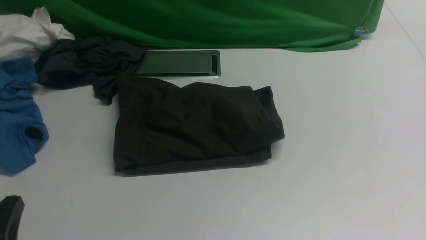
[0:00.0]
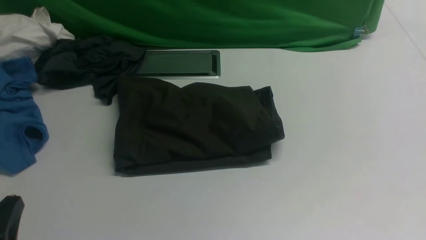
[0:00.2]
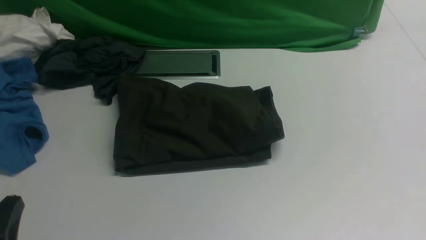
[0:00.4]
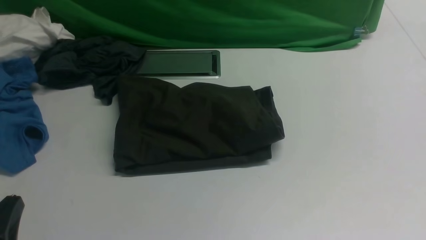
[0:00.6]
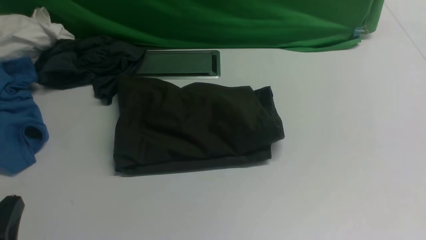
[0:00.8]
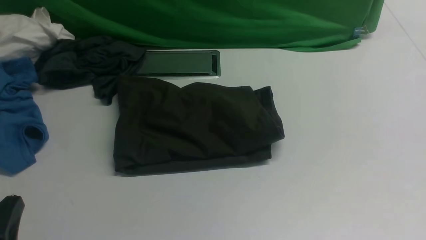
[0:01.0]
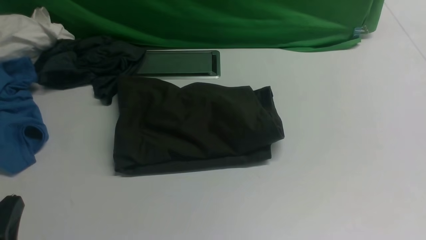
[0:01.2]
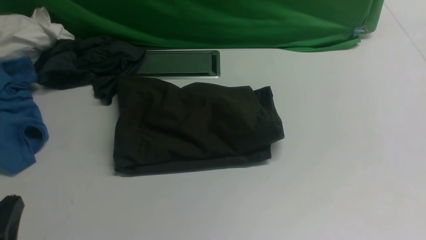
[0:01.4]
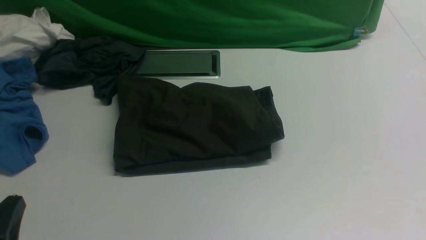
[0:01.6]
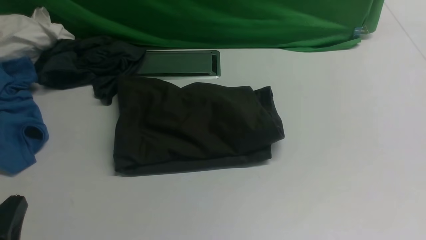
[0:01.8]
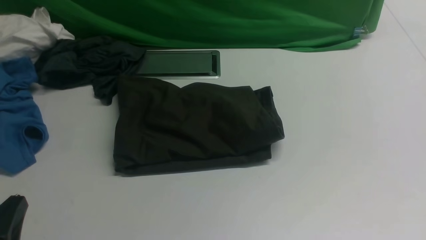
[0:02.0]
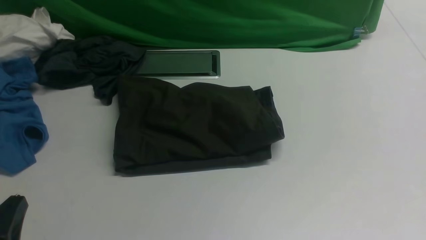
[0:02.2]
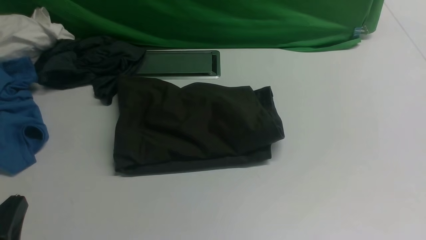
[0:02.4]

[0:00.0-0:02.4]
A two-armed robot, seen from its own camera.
0:01.2 to 0:02.4: The two grippers keep their place.

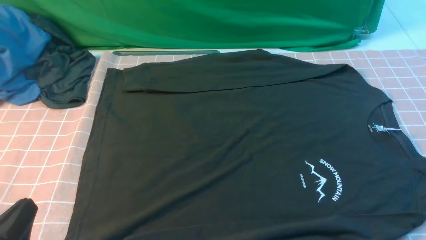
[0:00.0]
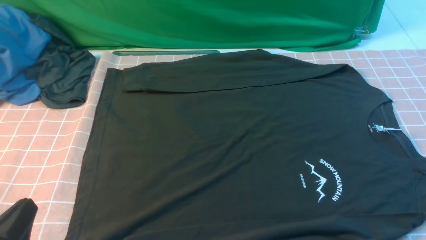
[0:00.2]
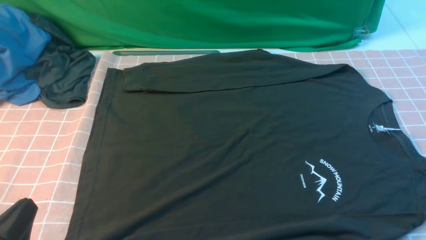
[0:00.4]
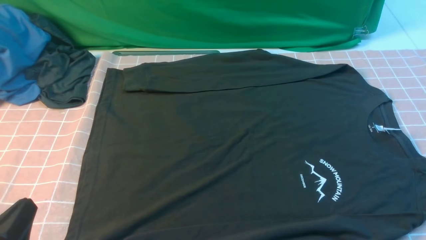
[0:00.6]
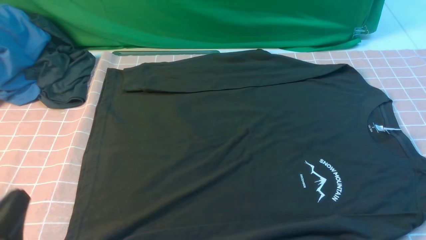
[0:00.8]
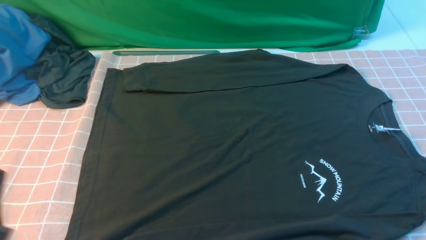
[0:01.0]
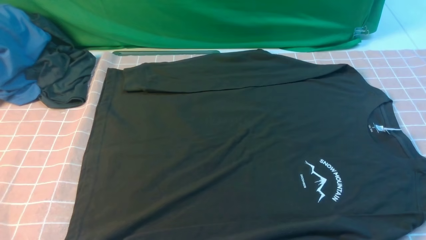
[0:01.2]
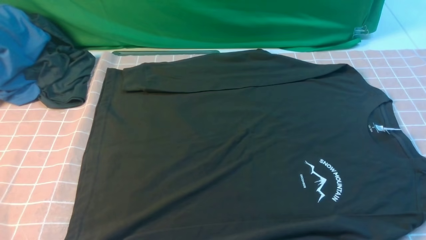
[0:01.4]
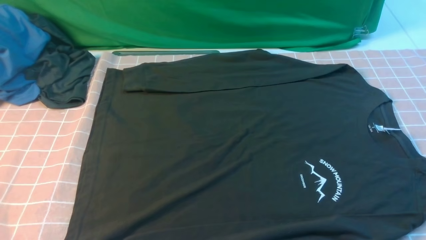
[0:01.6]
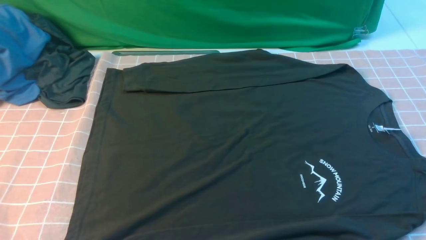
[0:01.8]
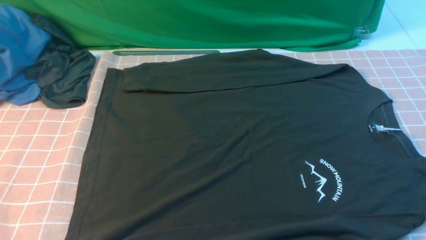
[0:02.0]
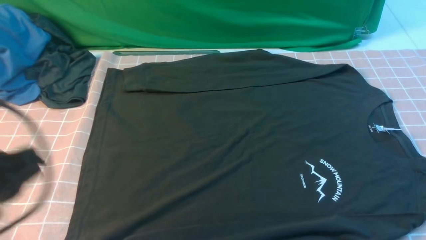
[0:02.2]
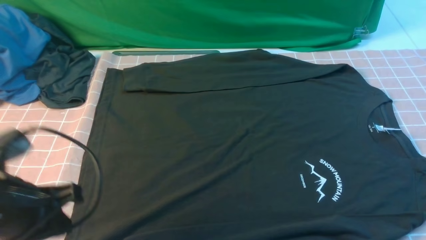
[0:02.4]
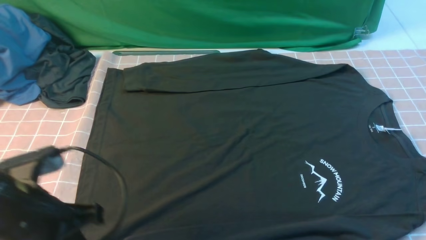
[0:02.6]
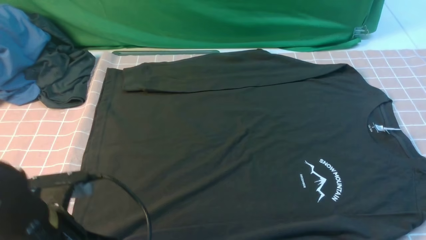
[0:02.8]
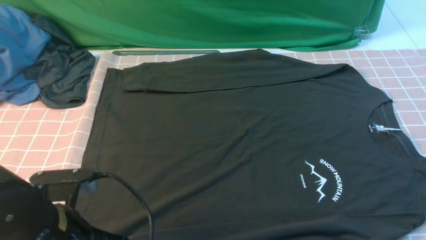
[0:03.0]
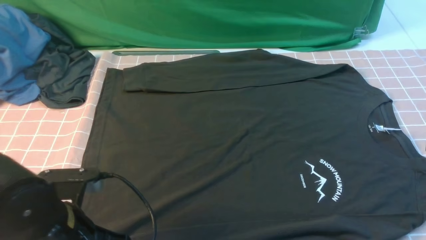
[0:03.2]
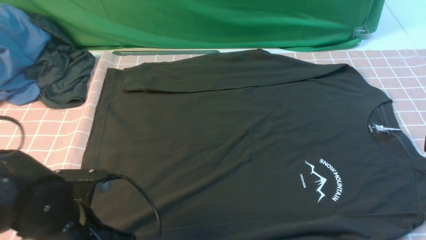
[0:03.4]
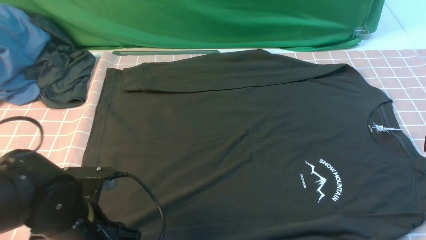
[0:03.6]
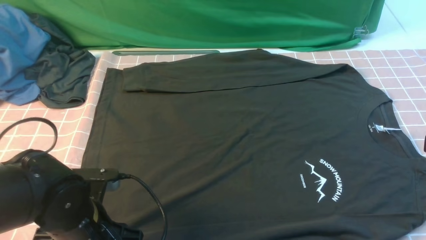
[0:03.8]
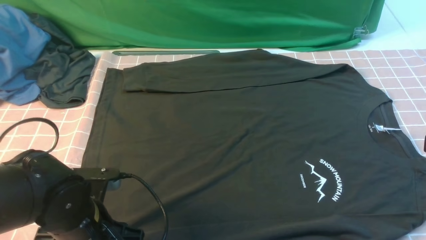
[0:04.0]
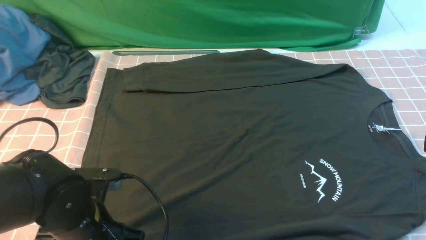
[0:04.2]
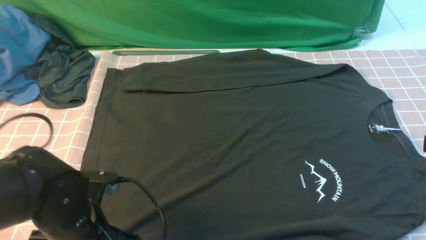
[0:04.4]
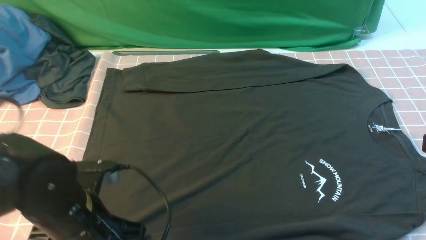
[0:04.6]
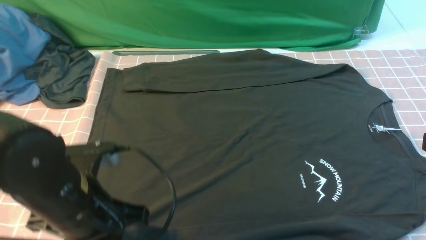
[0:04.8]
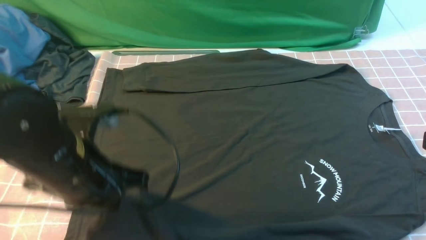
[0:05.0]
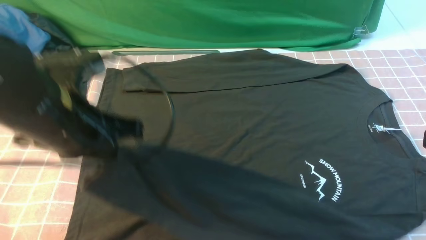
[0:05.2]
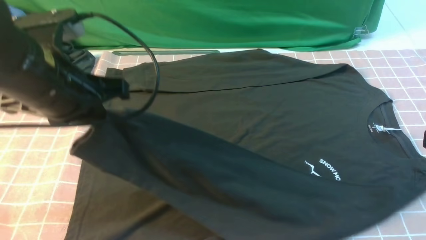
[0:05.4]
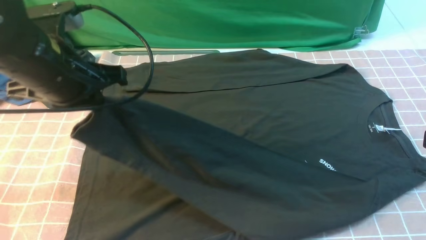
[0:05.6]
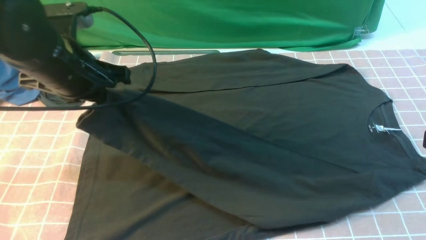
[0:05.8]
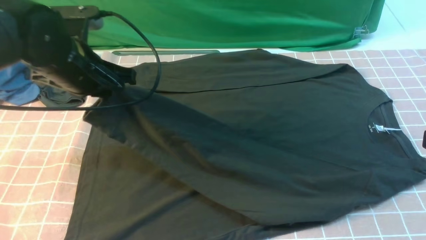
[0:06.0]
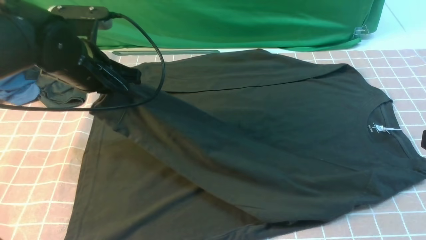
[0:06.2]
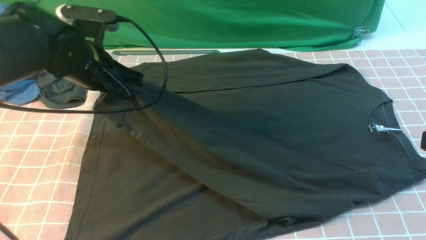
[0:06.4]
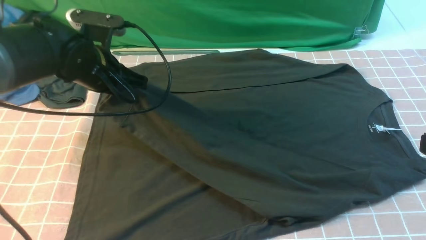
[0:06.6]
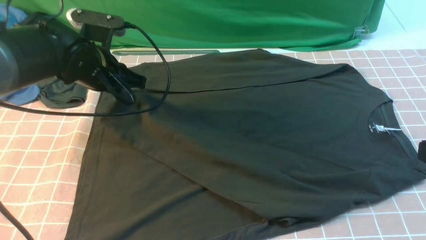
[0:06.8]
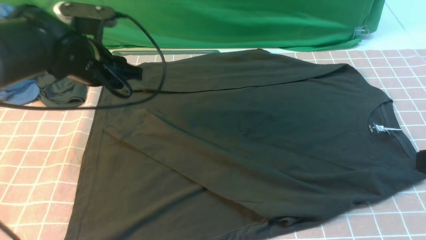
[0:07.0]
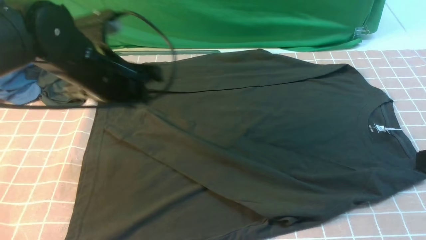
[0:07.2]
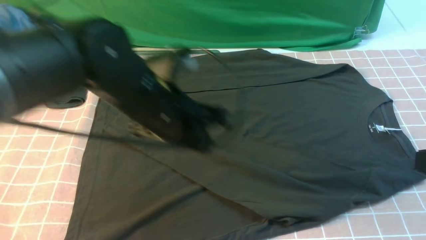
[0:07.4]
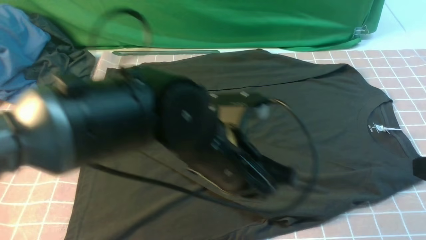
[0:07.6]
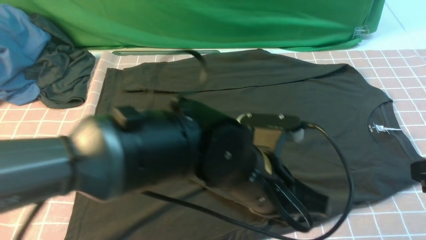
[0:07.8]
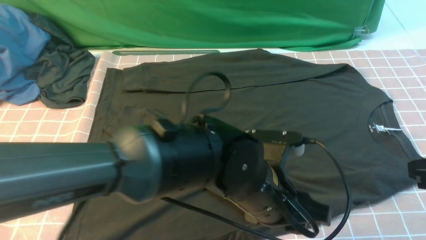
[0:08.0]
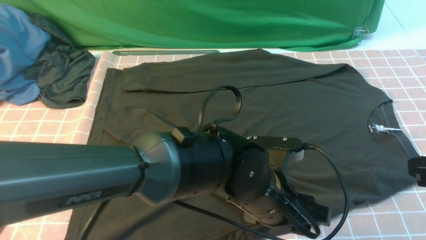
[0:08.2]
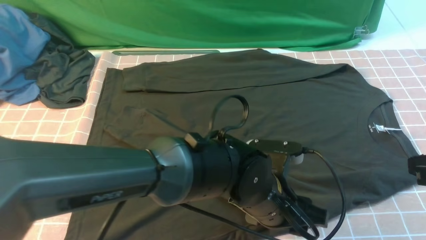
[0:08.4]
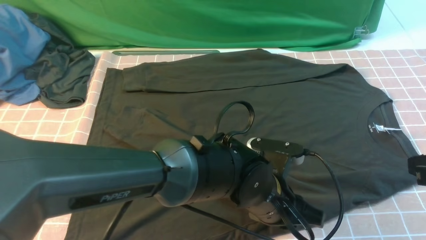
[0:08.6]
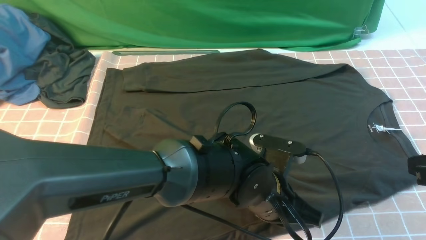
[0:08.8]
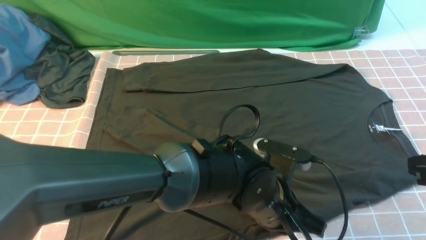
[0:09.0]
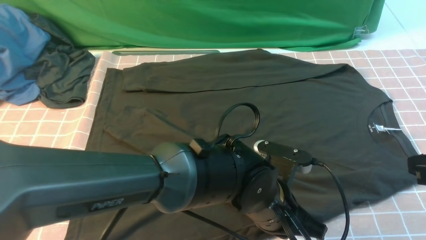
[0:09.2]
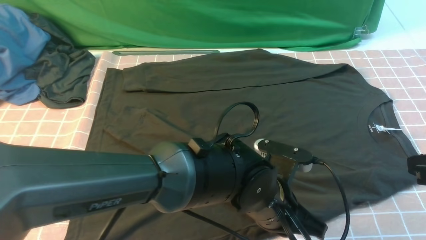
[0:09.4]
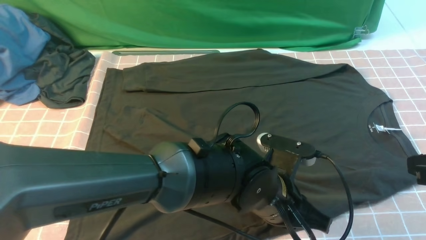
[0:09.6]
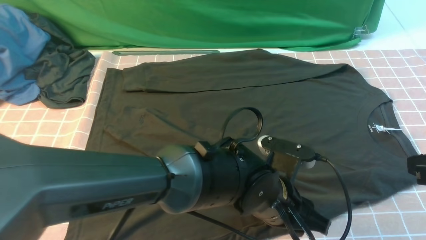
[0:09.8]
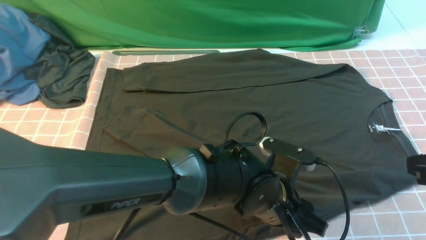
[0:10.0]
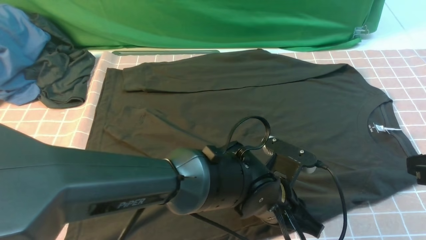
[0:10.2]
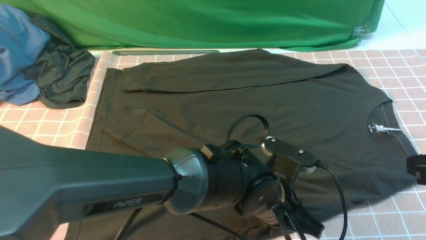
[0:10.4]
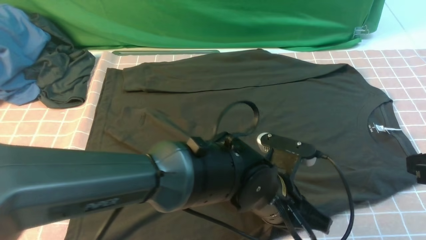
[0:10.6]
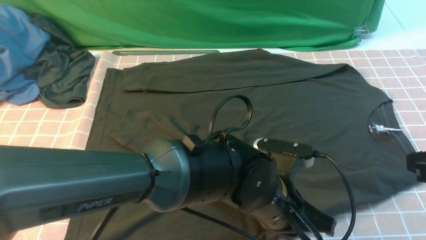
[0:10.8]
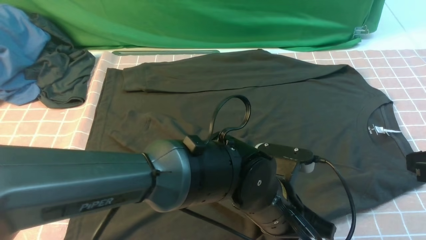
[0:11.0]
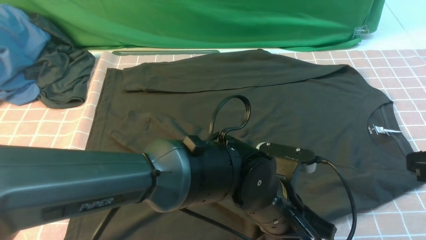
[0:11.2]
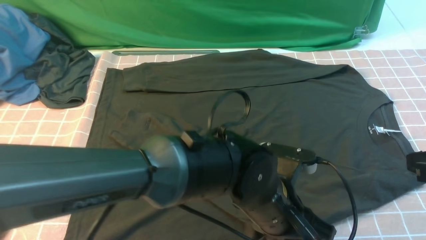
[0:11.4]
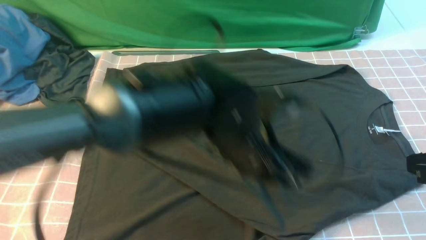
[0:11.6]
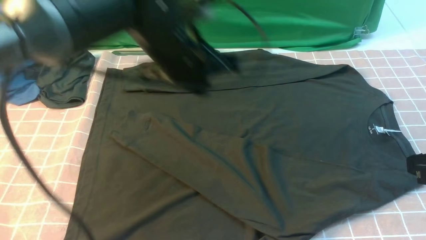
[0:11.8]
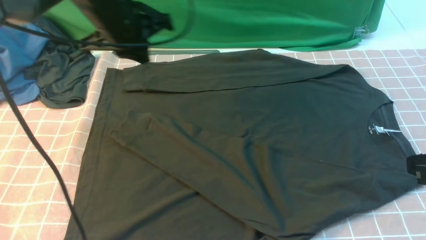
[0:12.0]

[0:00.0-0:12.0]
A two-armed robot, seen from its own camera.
Step, 0:00.0 to 0:04.8: use the left arm to clamp the cuff closest to it.
Step, 0:05.0 to 0:06.8: use the left arm to drag and place the cuff at the centered position on the left edge of the fabric.
0:00.0 to 0:01.6: The left gripper is displaced upward by roughly 10 cm.
0:01.6 to 0:03.0: The left gripper is displaced forward, to the right and downward by approximately 15 cm.
0:03.0 to 0:04.4: The left gripper opens, then closes once more.
0:04.4 to 0:06.0: The left gripper is displaced forward and upward by approximately 20 cm.
0:06.0 to 0:07.6: The left gripper travels to the right and backward by roughly 20 cm, and opens, then closes again.
0:07.6 to 0:09.0: The left gripper is displaced downward and to the right by about 10 cm, and opens and closes again.
0:09.0 to 0:10.4: The left gripper opens, then closes once more.
0:10.4 to 0:12.0: The left gripper heads to the left, forward and upward, covering roughly 35 cm.

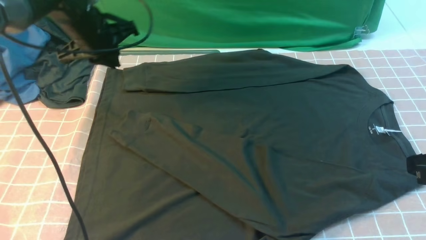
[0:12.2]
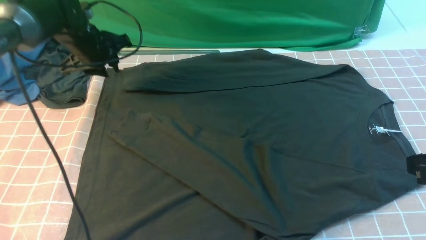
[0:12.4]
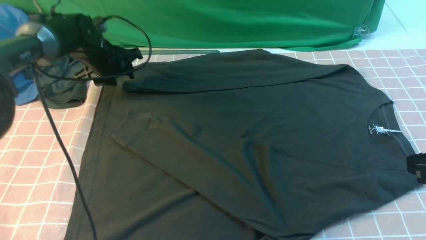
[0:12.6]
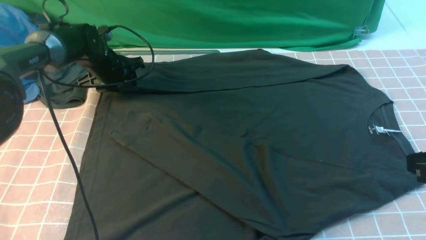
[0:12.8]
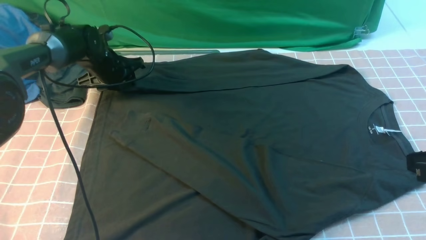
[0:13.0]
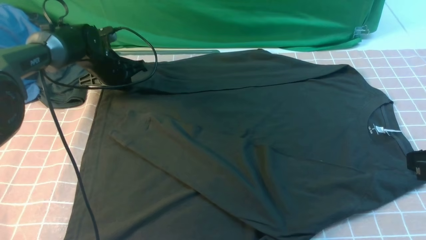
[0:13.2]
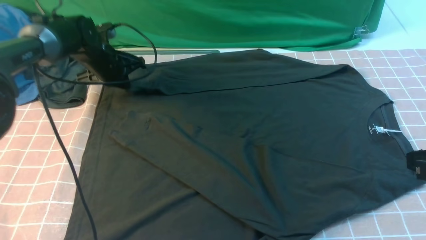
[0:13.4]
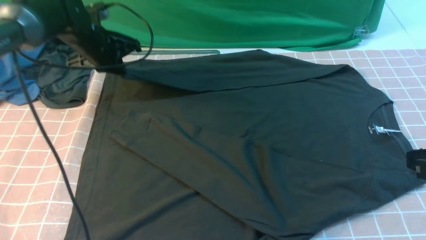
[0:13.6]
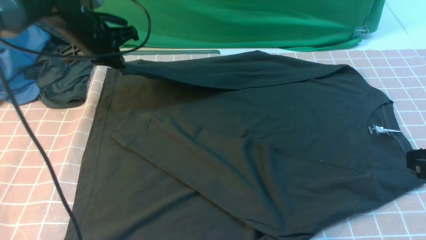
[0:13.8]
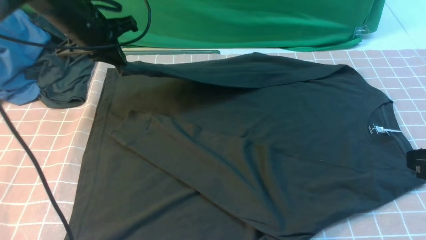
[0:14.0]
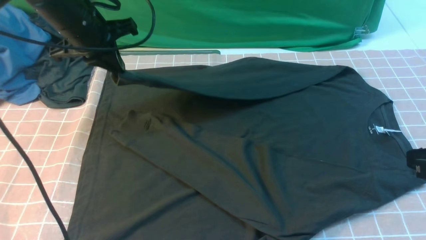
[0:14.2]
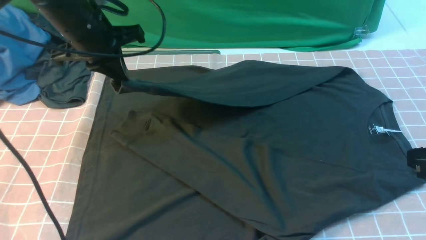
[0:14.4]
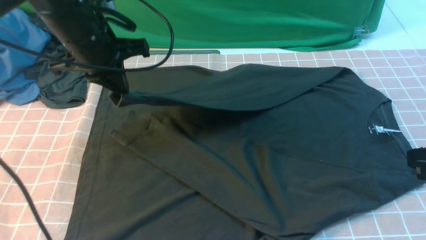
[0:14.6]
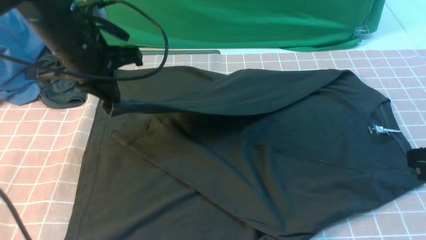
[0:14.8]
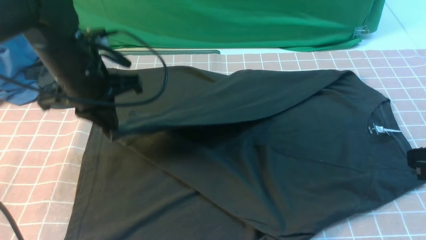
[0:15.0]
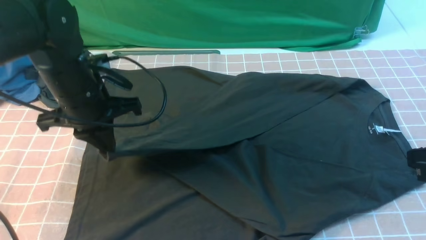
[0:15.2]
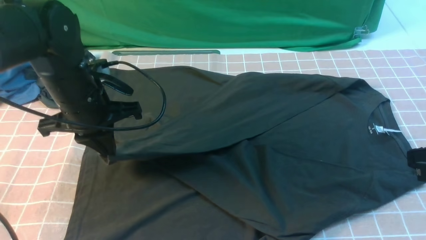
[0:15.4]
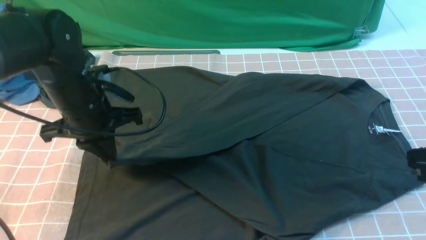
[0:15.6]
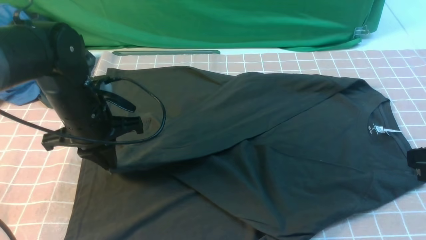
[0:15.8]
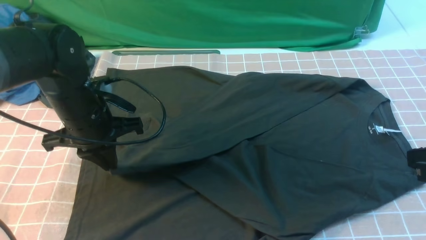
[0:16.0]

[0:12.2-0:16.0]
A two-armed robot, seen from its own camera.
0:12.2 to 0:13.4: The left gripper shifts roughly 5 cm downward, and opens, then closes again.
0:13.4 to 0:14.8: The left gripper travels backward and upward by roughly 20 cm.
0:14.8 to 0:16.0: The left gripper heads downward, covering some 10 cm.
